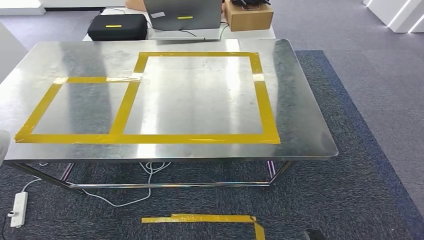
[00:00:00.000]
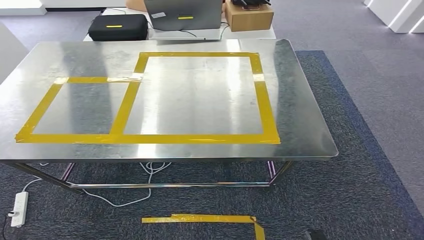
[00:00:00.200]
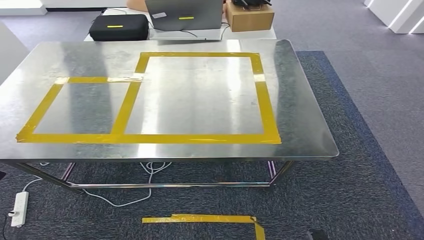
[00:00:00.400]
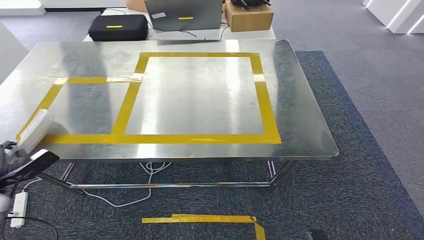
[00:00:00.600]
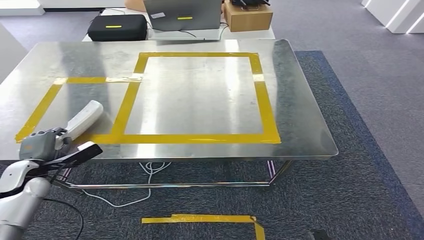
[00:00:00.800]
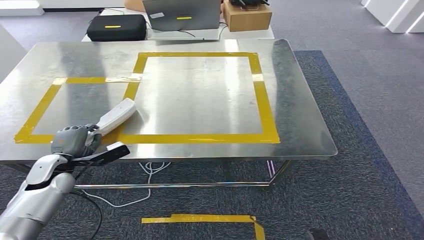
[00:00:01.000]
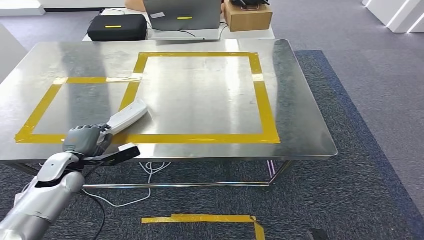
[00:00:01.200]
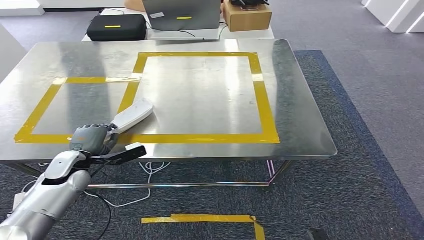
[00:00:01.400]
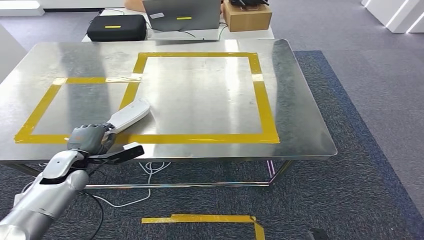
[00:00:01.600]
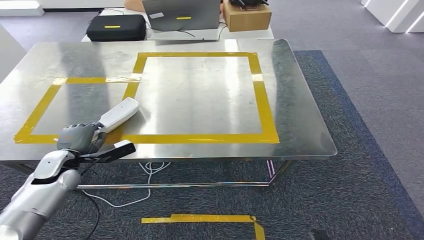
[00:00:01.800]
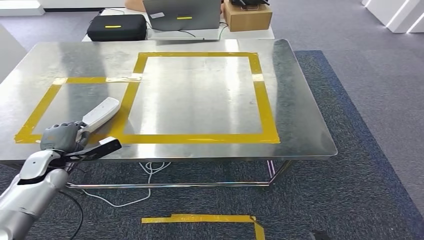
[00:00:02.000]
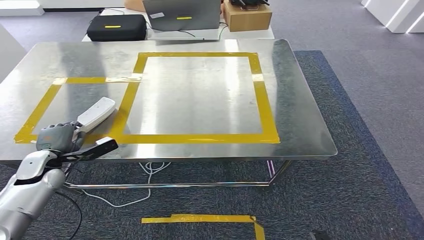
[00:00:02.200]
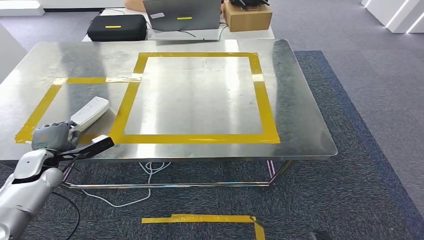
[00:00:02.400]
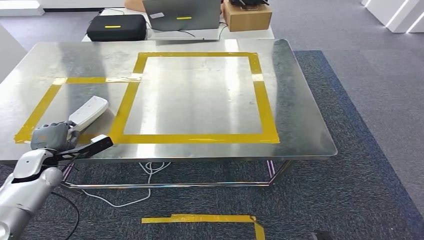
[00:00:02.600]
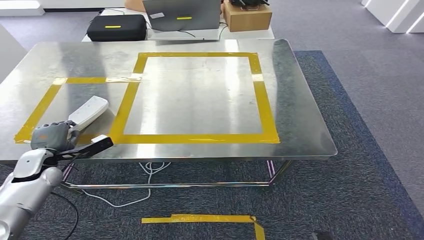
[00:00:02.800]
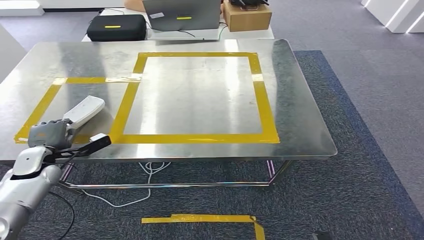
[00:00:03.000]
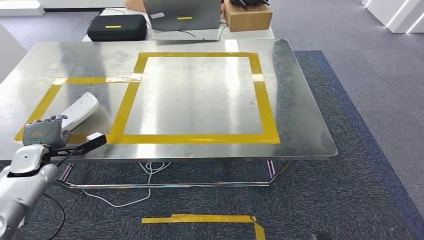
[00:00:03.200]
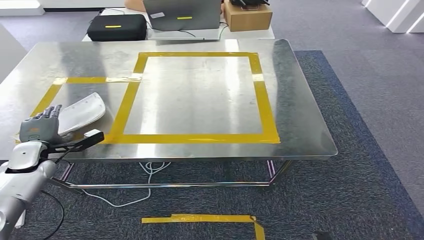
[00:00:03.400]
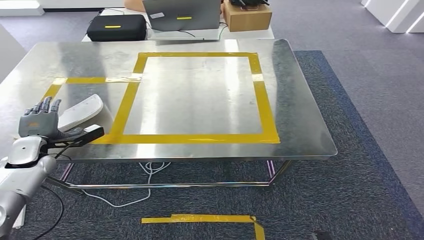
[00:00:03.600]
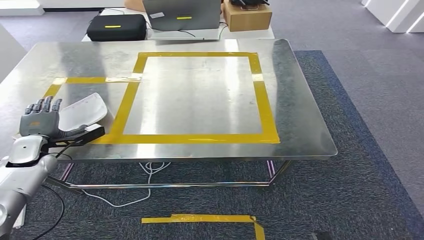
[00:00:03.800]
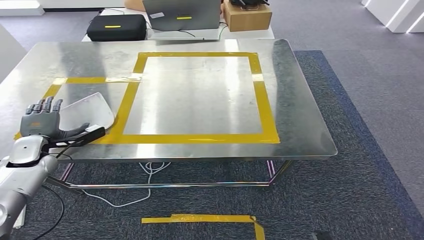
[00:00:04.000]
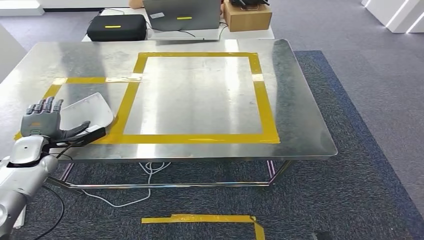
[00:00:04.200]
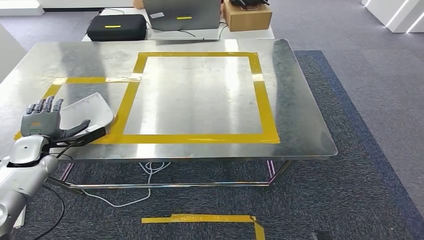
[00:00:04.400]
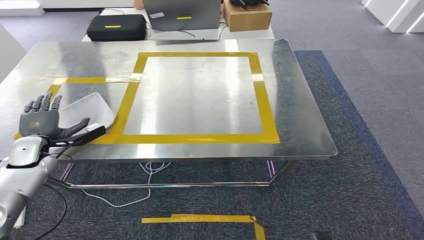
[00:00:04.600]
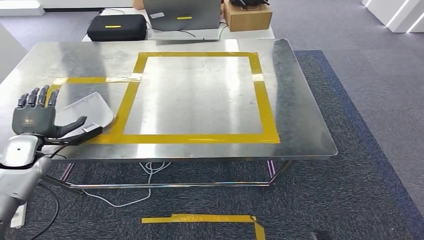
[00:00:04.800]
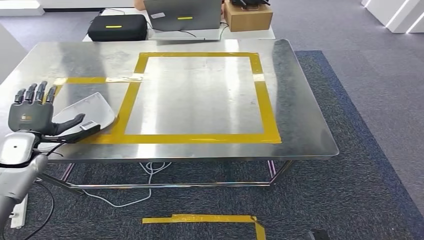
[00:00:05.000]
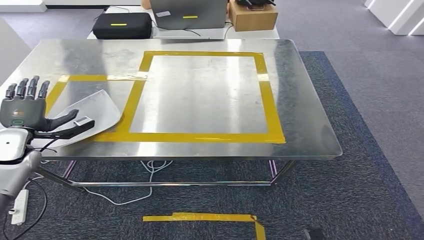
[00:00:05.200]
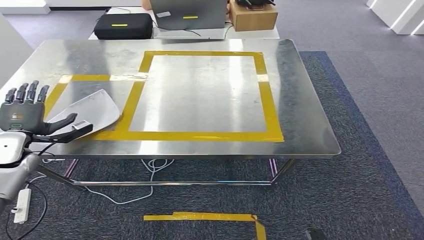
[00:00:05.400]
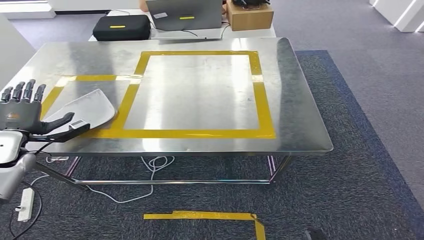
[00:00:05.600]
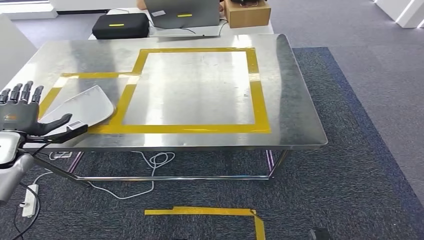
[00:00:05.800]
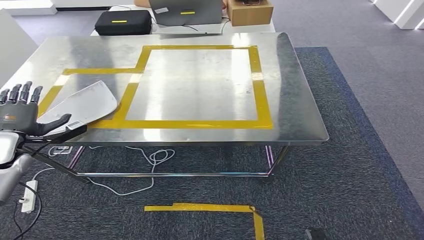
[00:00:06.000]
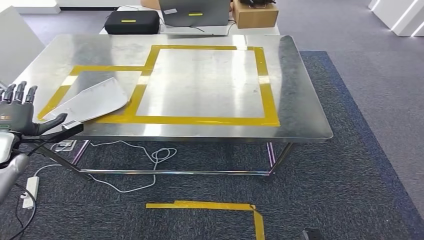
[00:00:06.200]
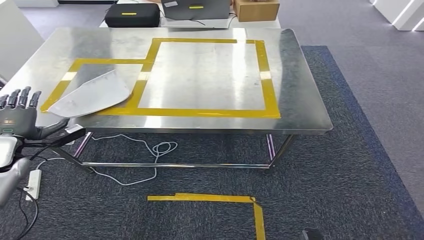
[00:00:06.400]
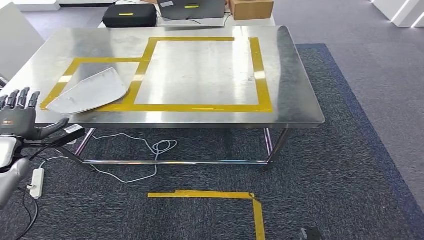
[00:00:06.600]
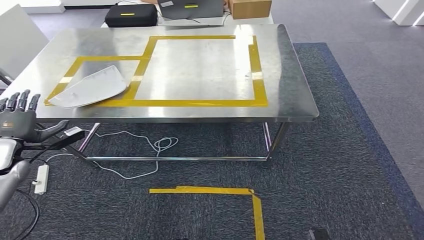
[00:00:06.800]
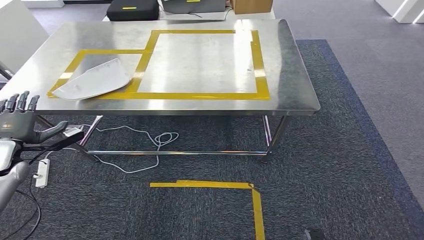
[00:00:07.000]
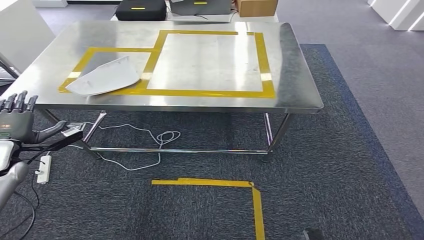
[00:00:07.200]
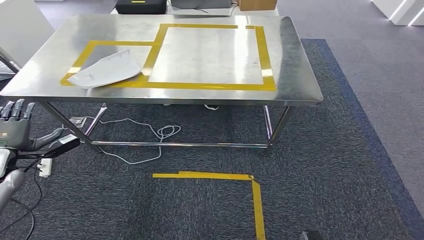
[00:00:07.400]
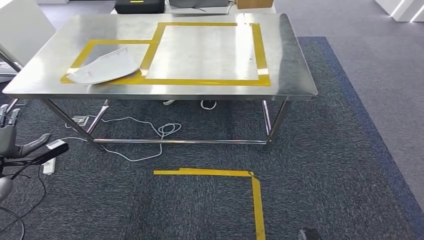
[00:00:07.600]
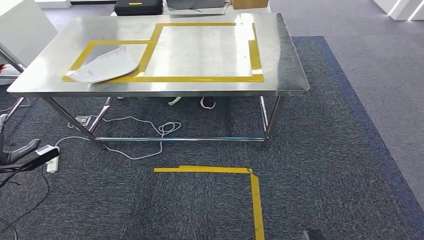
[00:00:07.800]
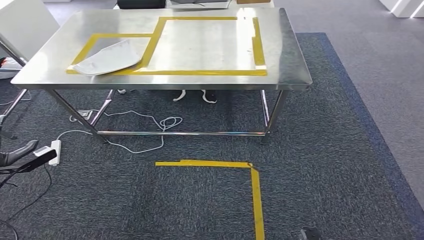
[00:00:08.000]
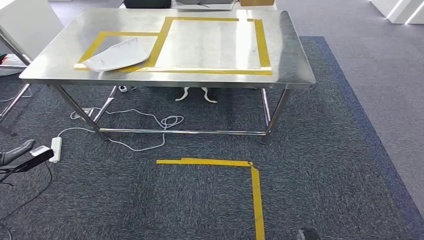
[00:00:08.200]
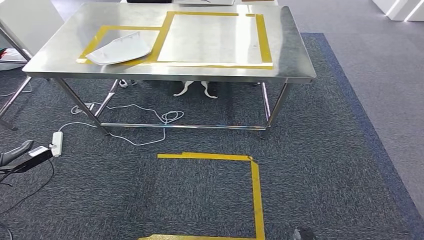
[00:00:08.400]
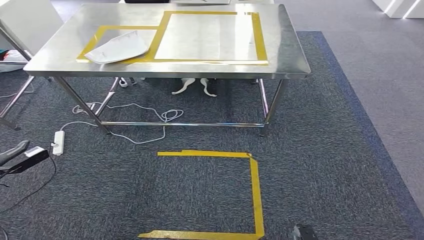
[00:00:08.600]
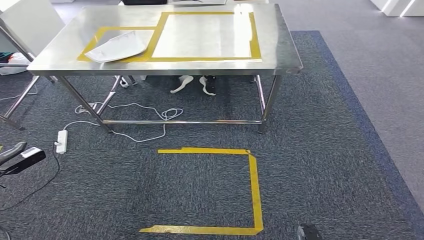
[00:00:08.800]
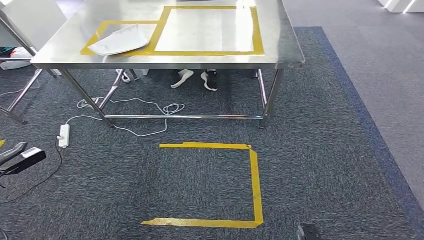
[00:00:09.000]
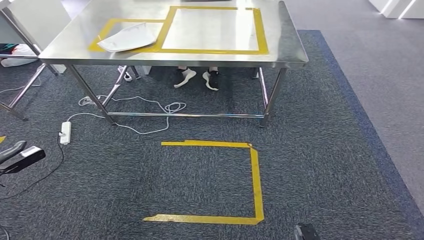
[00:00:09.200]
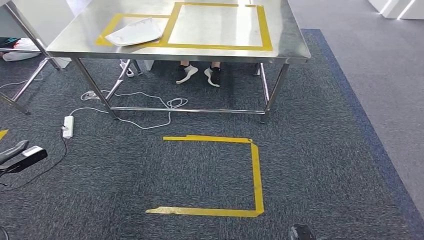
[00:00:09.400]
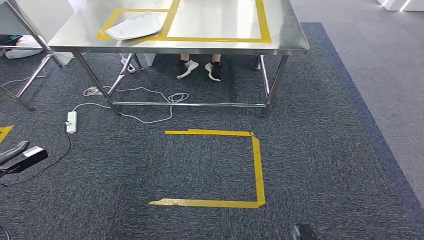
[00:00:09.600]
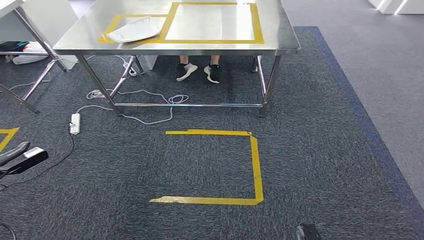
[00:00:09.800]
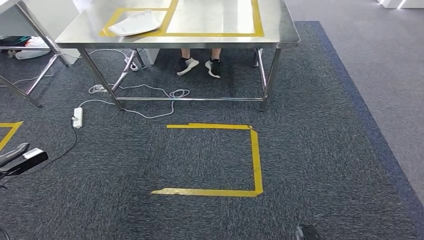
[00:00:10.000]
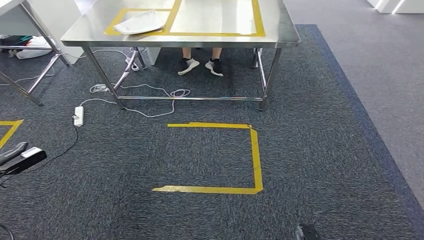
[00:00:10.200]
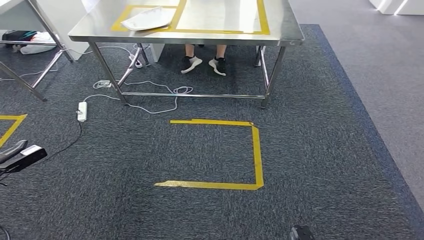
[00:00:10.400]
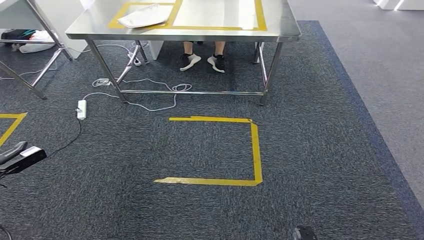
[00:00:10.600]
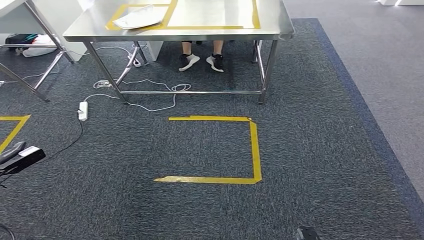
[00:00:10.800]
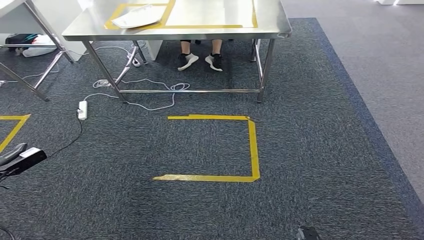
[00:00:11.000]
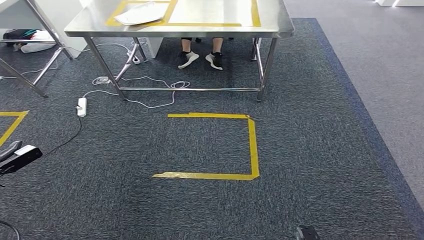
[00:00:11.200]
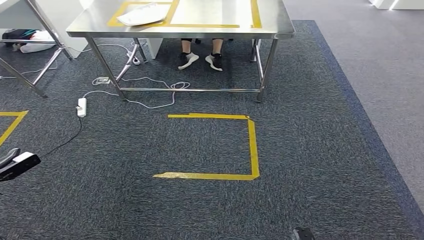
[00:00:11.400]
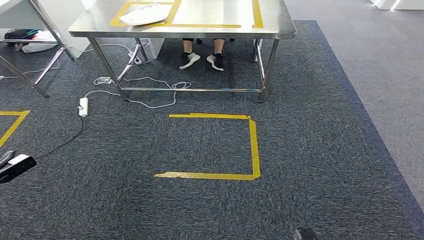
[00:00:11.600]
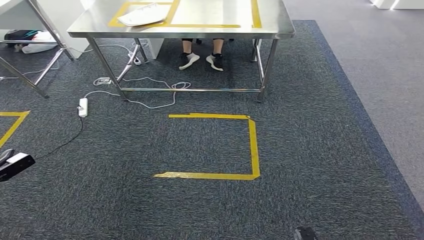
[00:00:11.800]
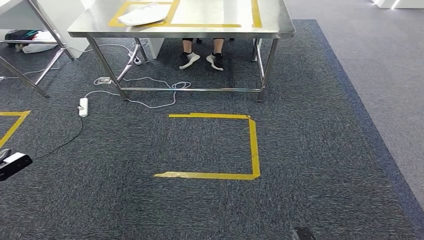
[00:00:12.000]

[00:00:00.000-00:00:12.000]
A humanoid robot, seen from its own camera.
Step, 00:00:00.000 to 00:00:09.800: Insert the small component into the corresponding slot on the workbench.
00:00:00.000 to 00:00:01.600: The left hand shifts about 30 cm forward and to the right.
00:00:01.600 to 00:00:03.000: The left hand shifts some 5 cm to the left.
00:00:03.000 to 00:00:04.400: The hands make only small movements.
00:00:10.400 to 00:00:12.000: There are only small adjustments of the hands.

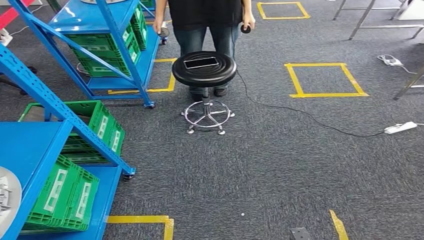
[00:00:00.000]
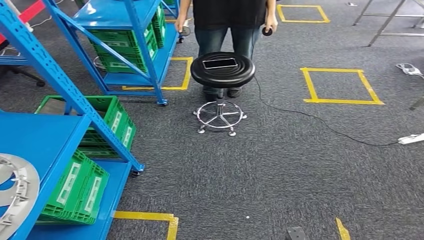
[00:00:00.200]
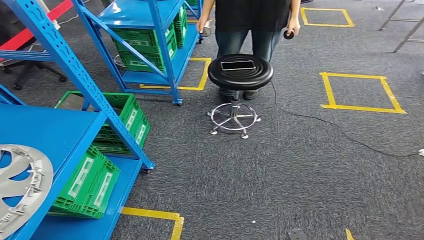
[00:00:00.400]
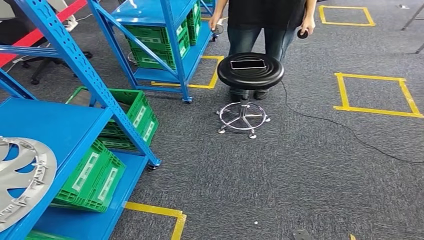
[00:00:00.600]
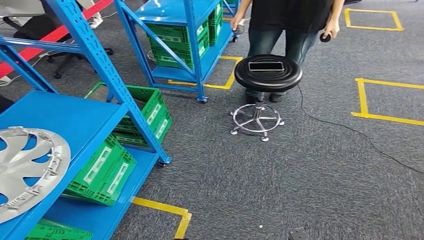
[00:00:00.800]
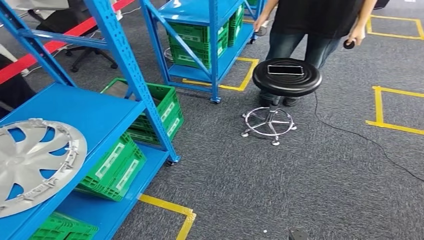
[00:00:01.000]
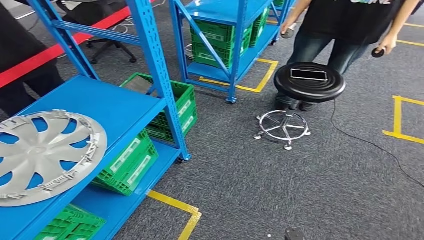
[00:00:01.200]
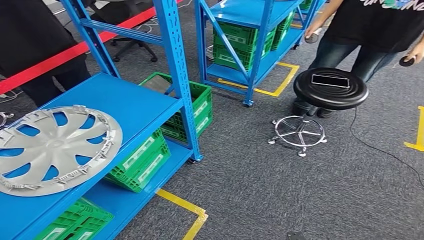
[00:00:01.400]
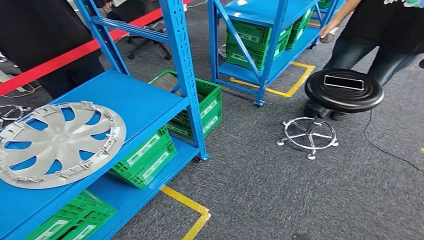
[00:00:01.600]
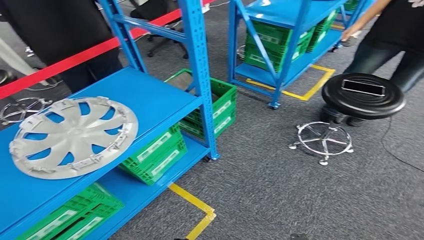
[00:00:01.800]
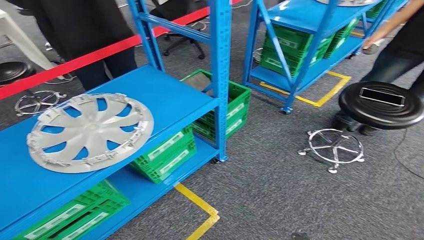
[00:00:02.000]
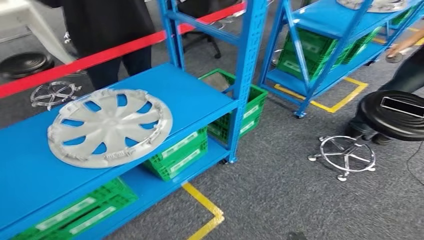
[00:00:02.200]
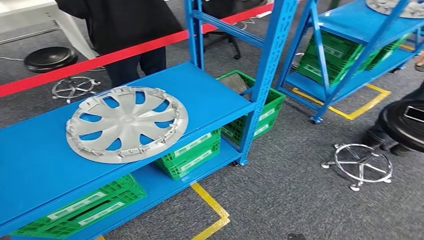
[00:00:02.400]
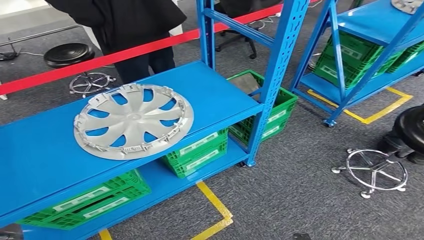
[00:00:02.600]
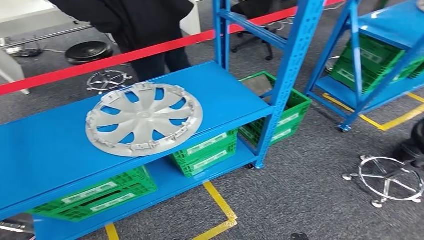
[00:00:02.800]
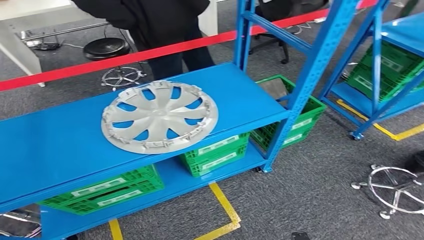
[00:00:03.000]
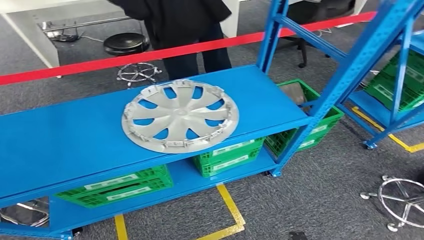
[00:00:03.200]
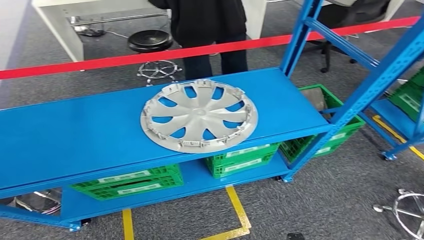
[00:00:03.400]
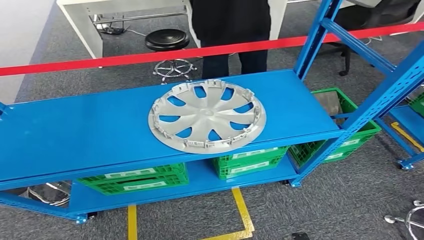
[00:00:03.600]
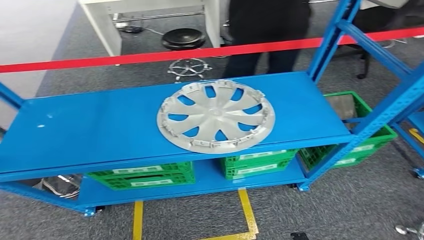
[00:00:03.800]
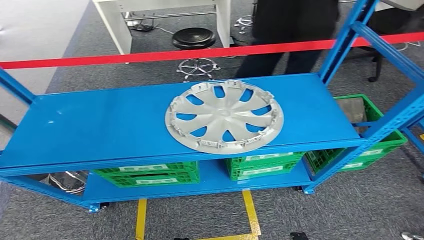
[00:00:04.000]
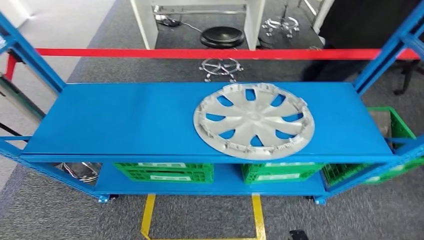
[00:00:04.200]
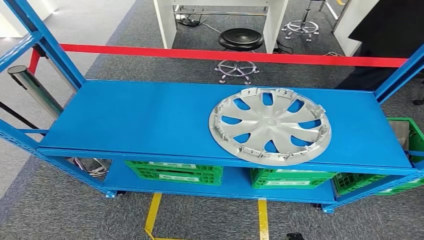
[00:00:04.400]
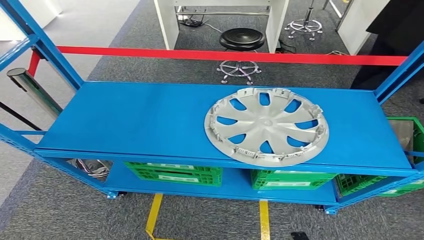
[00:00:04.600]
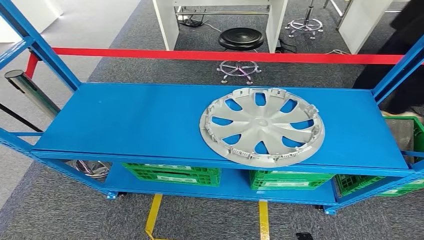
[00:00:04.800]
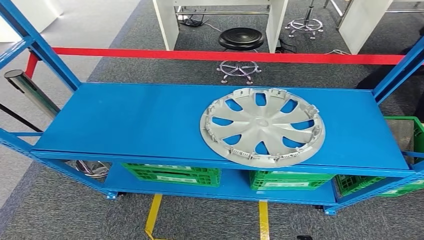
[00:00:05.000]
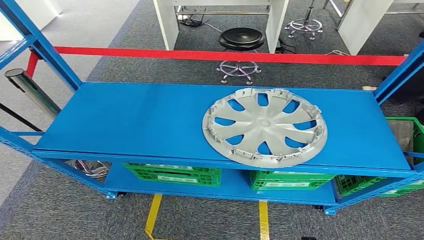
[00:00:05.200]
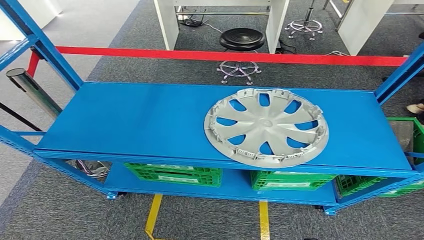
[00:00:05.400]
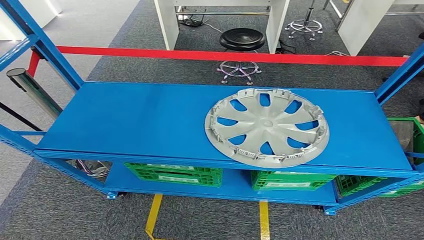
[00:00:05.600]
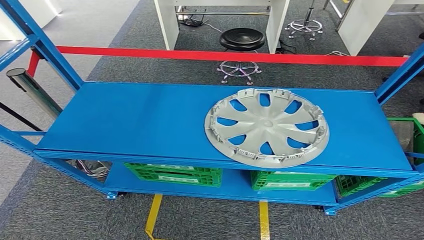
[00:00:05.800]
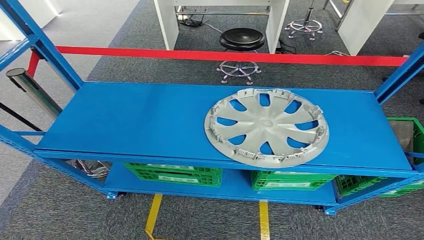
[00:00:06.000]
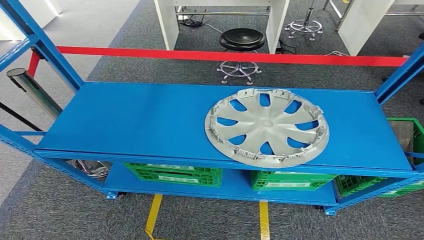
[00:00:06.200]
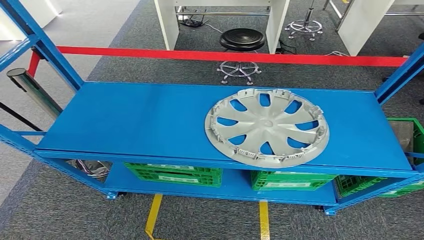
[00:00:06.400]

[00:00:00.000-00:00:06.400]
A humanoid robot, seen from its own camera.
Step, 00:00:00.000 to 00:00:06.400: Move to the initial position of the workbench.
00:00:04.800 to 00:00:06.400: The right hand shifts by approximately 5 cm. Meanwhile the left hand goes roughly 5 cm to the left.
